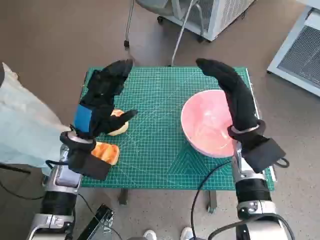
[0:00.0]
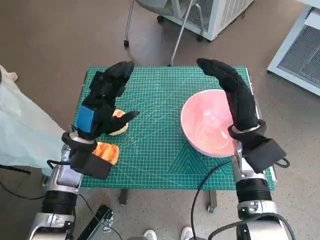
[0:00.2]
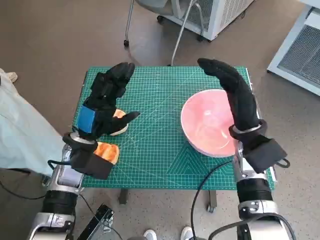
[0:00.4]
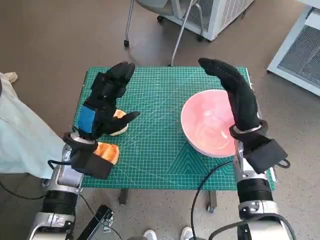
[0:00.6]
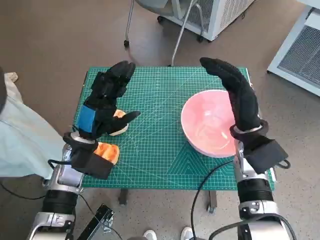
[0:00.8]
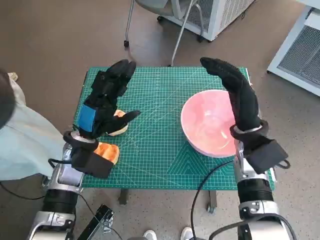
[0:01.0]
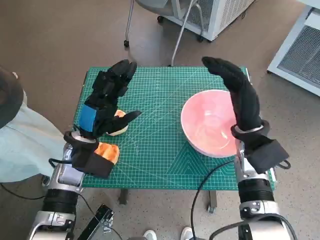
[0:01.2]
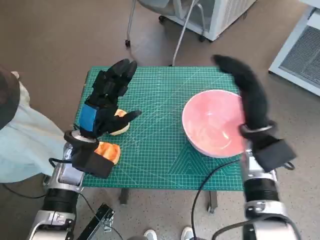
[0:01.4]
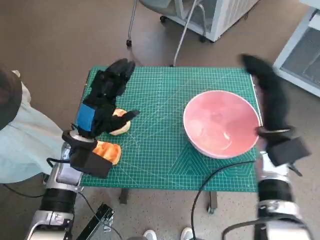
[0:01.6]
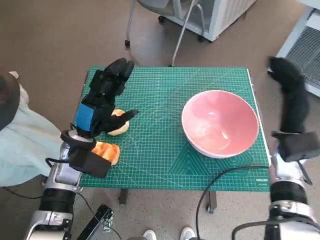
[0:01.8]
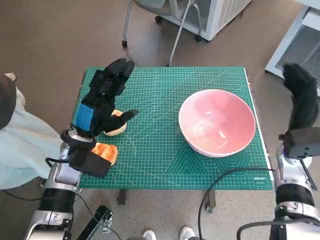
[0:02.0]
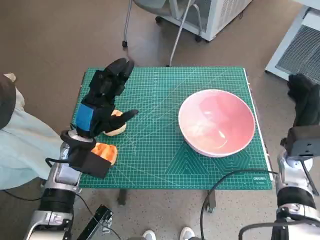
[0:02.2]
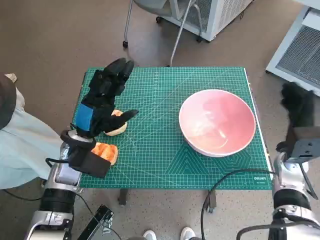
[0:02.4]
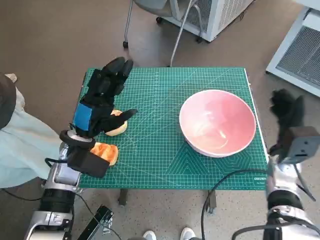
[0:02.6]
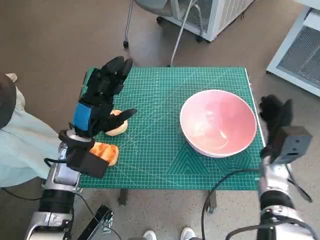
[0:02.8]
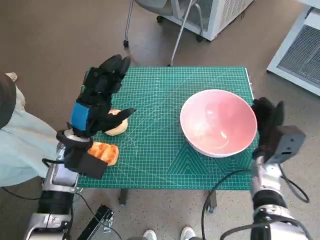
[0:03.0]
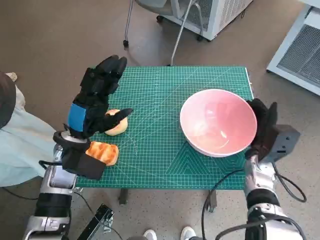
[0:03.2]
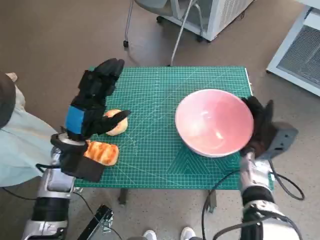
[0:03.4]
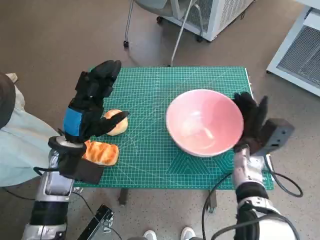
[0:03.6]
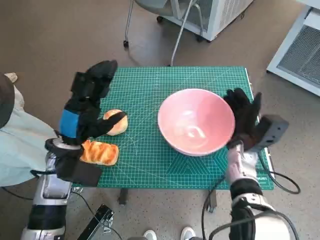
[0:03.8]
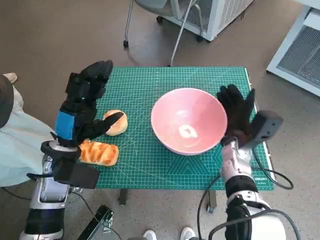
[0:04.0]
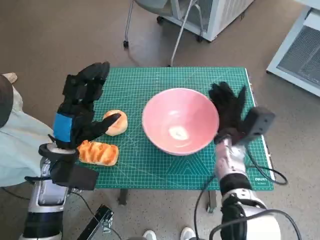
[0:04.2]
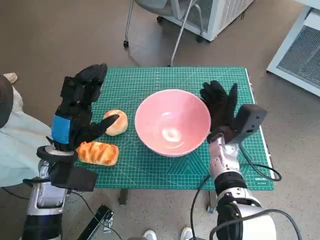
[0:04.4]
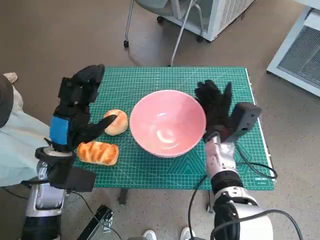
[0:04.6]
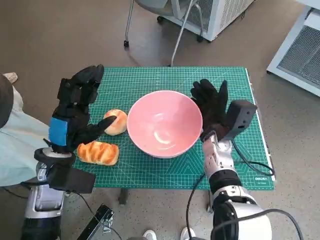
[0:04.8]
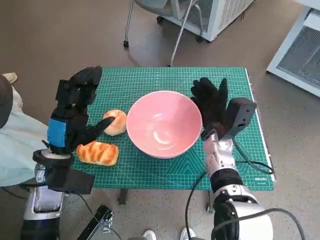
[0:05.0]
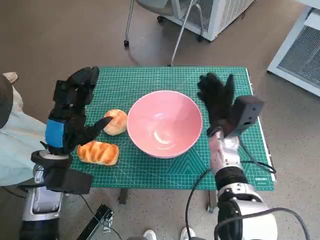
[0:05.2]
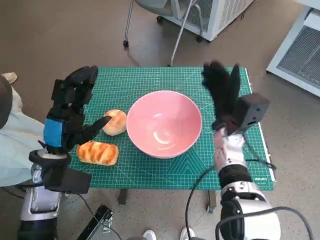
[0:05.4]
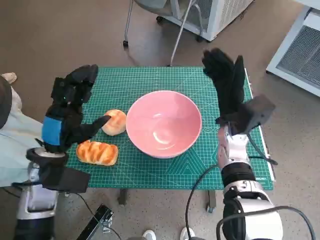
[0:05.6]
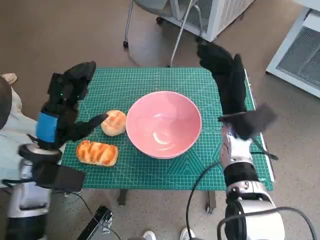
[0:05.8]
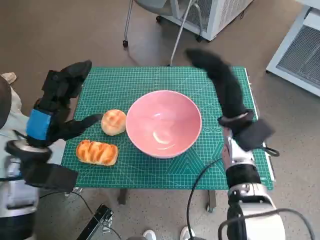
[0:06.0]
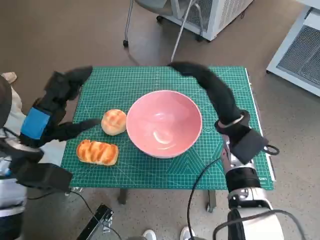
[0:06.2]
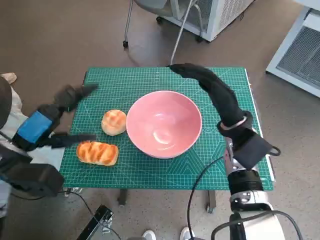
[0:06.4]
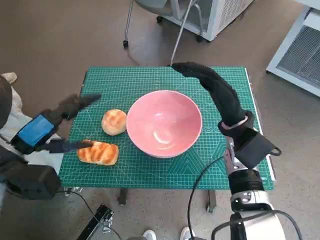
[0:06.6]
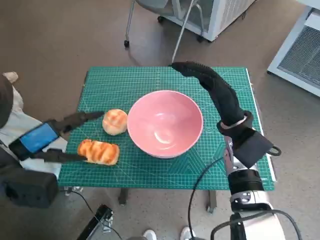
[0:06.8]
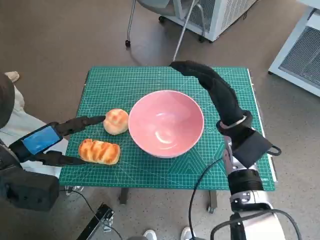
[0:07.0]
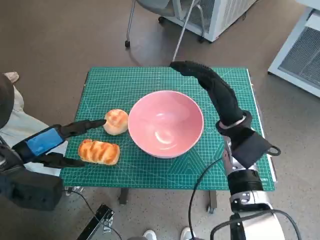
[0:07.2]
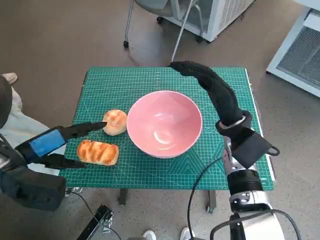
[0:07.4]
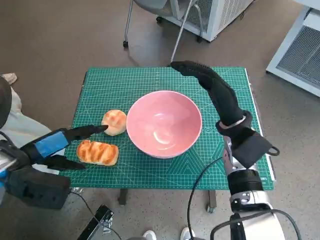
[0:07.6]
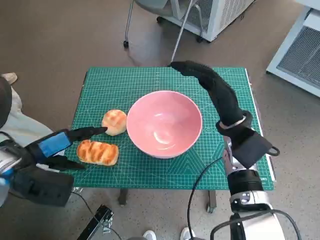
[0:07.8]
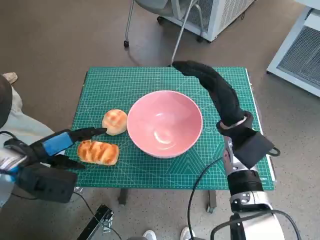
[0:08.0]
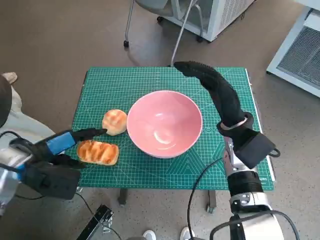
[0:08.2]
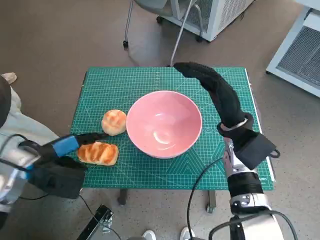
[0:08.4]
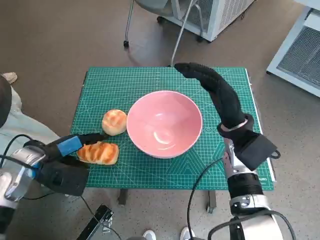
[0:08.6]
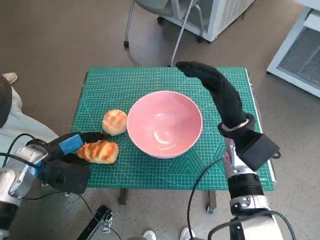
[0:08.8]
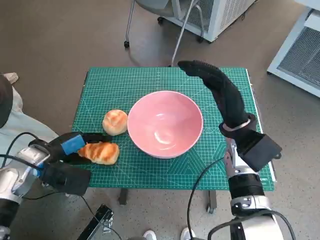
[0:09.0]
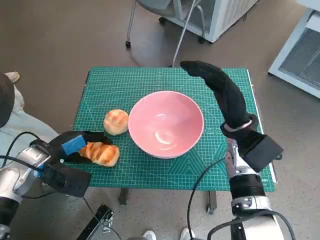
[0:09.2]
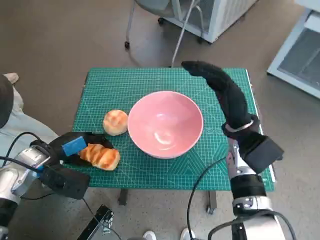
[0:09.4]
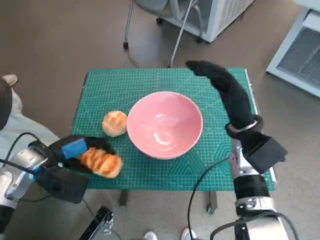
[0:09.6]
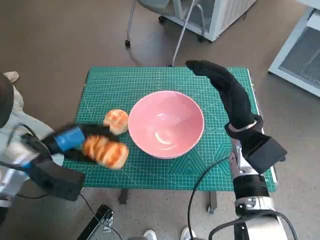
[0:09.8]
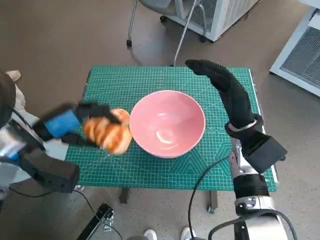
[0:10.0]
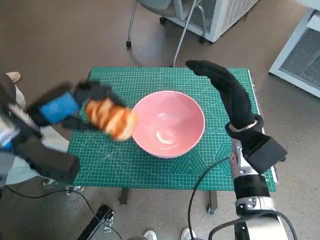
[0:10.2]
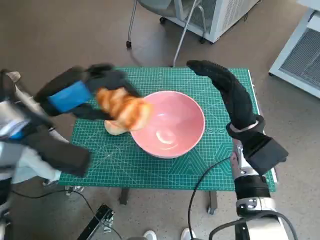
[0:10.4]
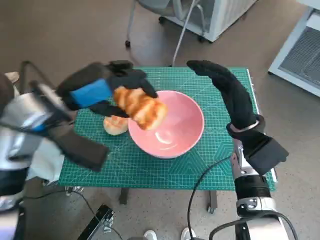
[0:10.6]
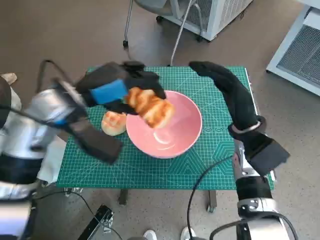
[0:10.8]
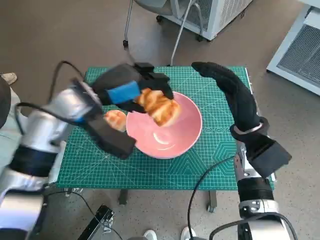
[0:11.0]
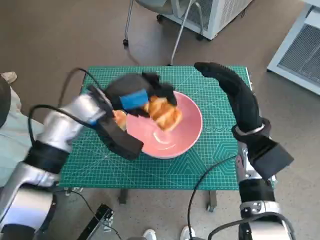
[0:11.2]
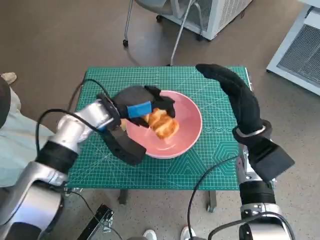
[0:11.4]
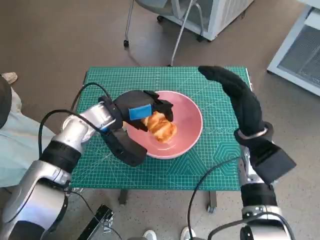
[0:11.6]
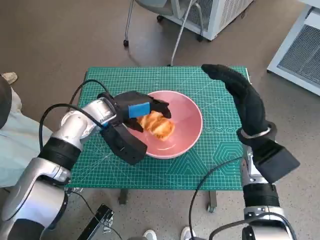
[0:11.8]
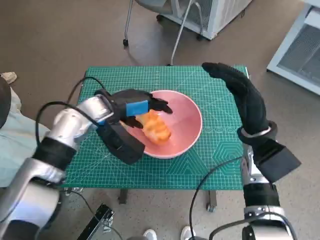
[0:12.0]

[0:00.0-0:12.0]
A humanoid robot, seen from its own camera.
Task of the whole recording: Push the bowl to the center of the table and put the bread into the bowl.
Step, 0:00.0 to 0:05.2: Move the pink bowl to the center of table with right hand.
Step, 0:05.4 to 0:09.2: Grasp the long bread with left hand.
0:01.6 to 0:03.0: The right hand travels downward by roughly 10 cm.
0:03.0 to 0:04.4: The right hand moves to the left, about 10 cm.
0:04.4 to 0:06.0: The right hand travels upward by some 5 cm.
0:07.6 to 0:09.0: The left hand goes some 5 cm downward.
0:09.0 to 0:10.4: The left hand goes approximately 15 cm upward and to the right.
0:10.4 to 0:12.0: The left hand moves downward, forward and to the right, about 15 cm.

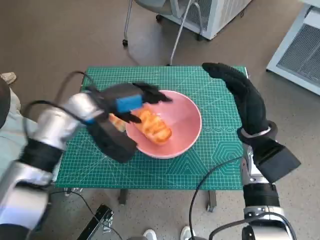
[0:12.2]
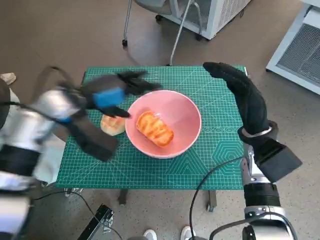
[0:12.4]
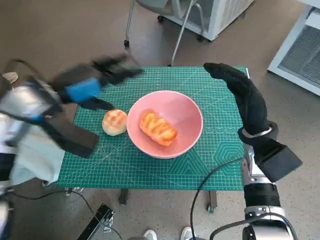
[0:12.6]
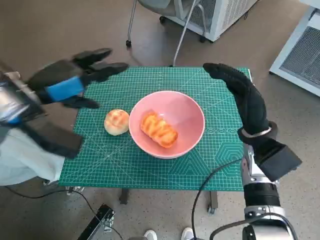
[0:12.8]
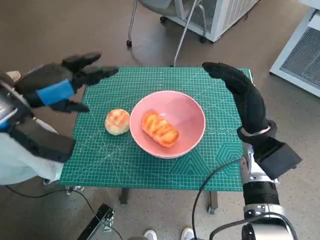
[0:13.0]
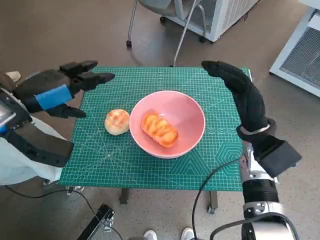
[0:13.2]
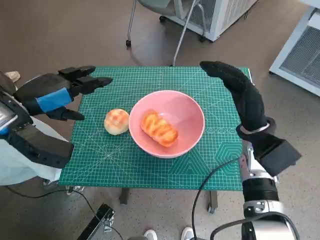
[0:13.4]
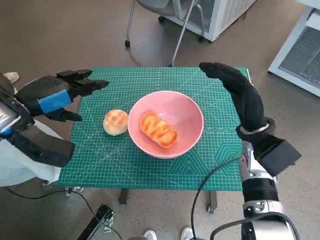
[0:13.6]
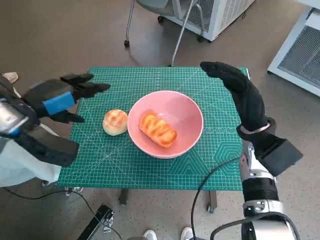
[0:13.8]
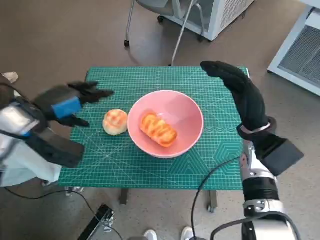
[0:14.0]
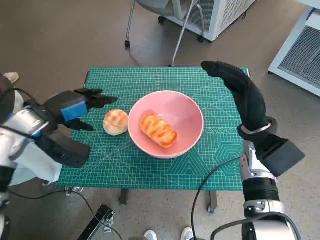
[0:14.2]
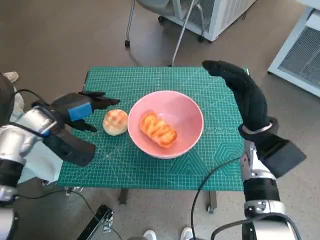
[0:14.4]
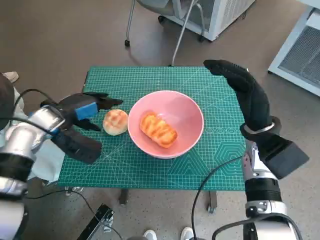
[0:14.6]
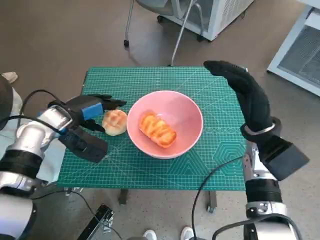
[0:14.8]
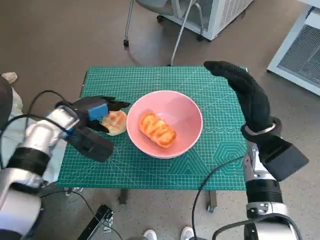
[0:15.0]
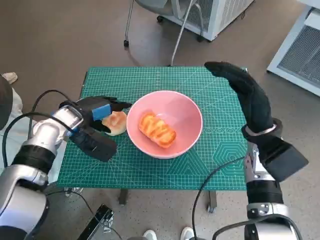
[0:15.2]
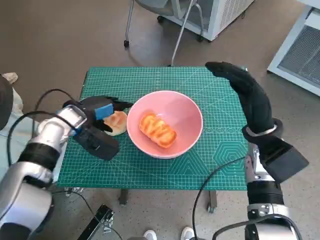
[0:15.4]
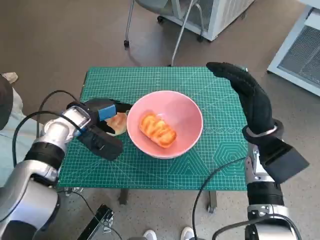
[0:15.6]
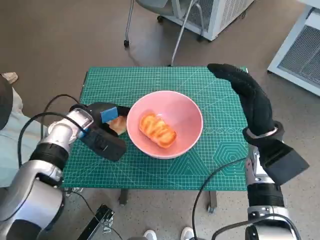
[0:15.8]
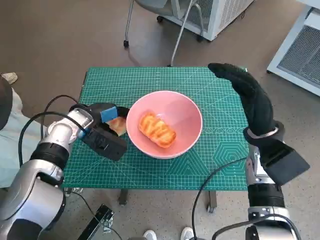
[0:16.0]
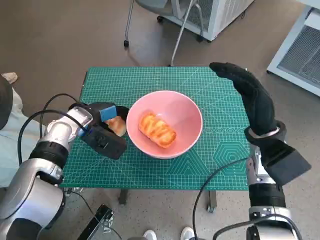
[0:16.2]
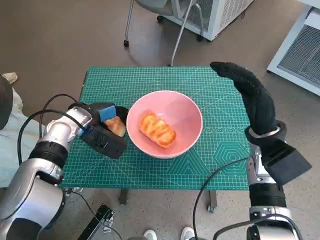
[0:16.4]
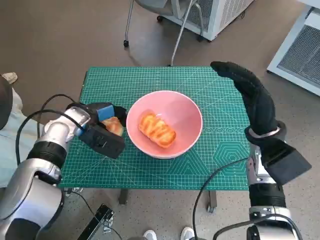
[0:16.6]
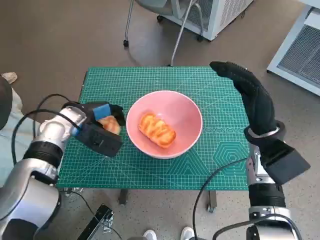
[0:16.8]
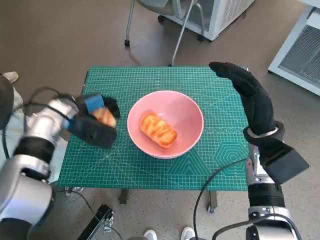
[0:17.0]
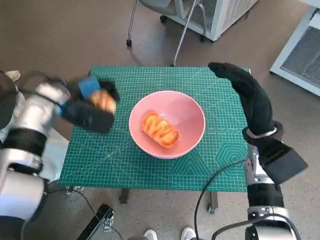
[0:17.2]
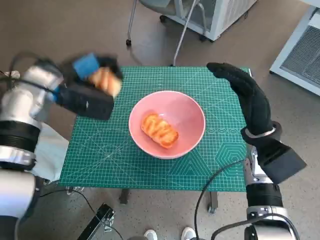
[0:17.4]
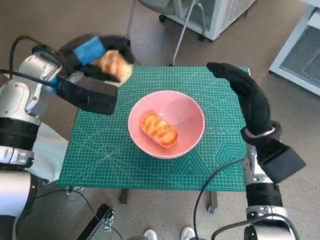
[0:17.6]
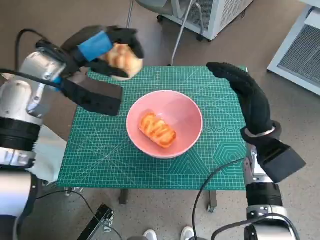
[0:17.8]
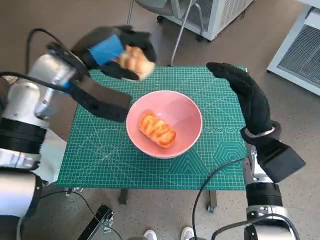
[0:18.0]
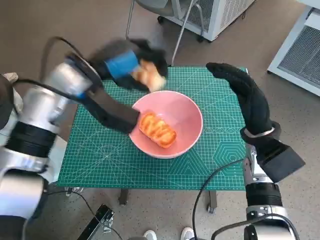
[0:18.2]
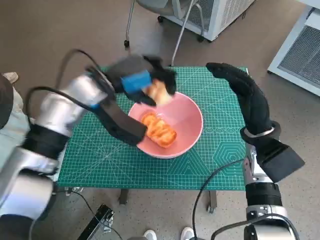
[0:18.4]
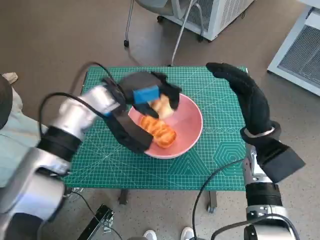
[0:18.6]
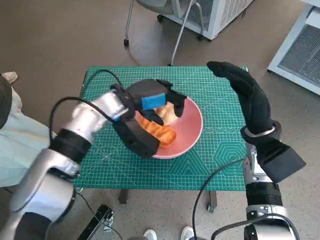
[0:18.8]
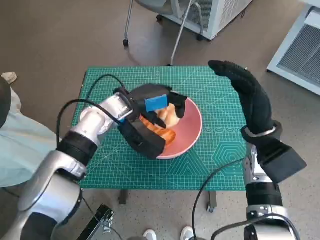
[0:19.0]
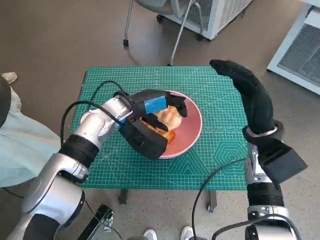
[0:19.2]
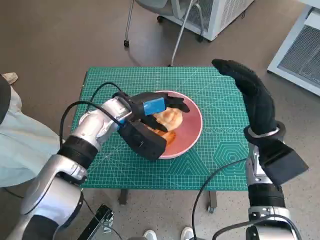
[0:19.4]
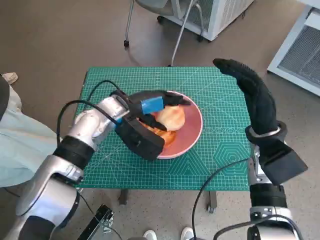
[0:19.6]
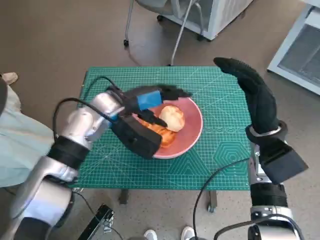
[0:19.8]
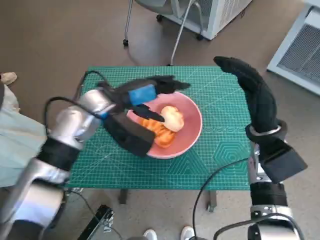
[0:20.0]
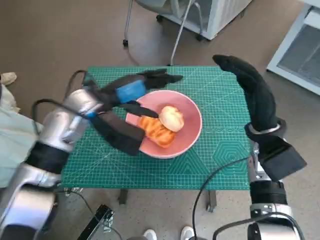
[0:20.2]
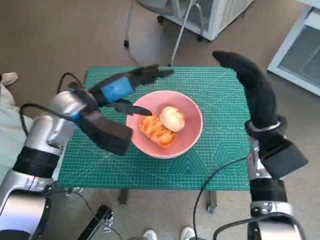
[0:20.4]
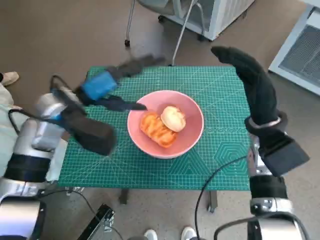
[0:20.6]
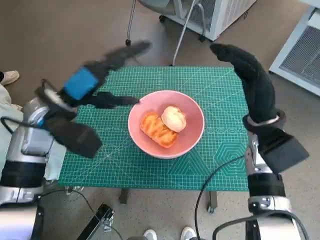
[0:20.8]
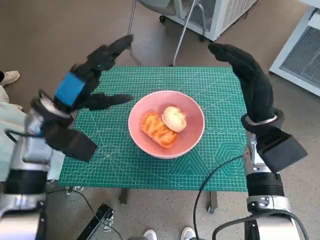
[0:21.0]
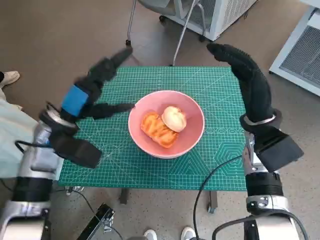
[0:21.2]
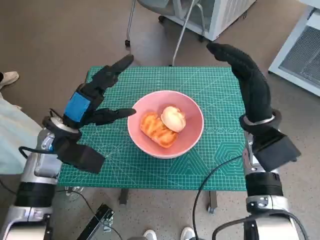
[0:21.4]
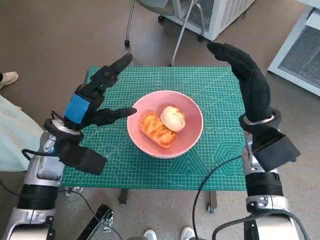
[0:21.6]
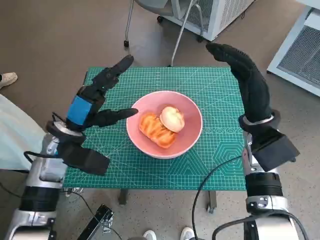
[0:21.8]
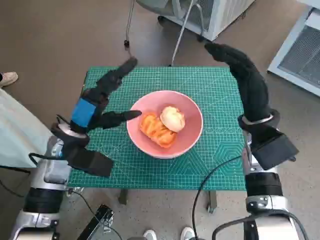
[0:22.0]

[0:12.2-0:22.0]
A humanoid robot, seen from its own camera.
Task of the whole recording: Push the bowl to the center of the table and put the bread into the bowl.
Step, 0:12.8 to 0:15.8: Grasp the round bread with left hand.
Step, 0:16.0 to 0:20.2: Place the round bread in pink bowl with left hand.
0:12.2 to 0:13.6: The left hand shifts some 10 cm to the left and backward.
0:13.6 to 0:15.0: The left hand is displaced downward and forward by roughly 10 cm.
0:15.0 to 0:16.4: There are only small adjustments of the hands.
0:16.4 to 0:17.8: The left hand travels upward by roughly 15 cm.
0:17.8 to 0:19.2: The left hand moves downward and to the right, about 15 cm.
0:19.2 to 0:20.6: The left hand is displaced to the left and upward by roughly 10 cm.
0:20.6 to 0:22.0: The left hand shifts about 5 cm downward.
